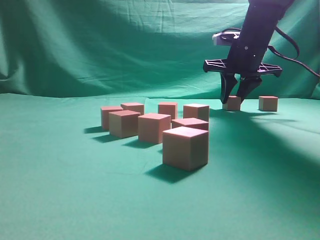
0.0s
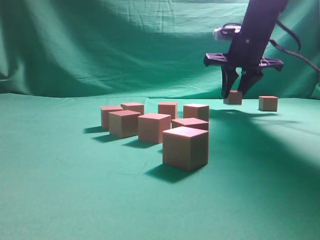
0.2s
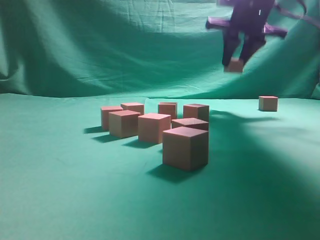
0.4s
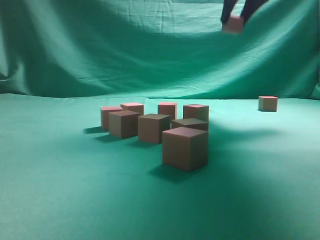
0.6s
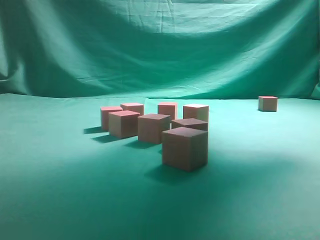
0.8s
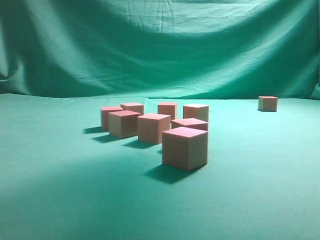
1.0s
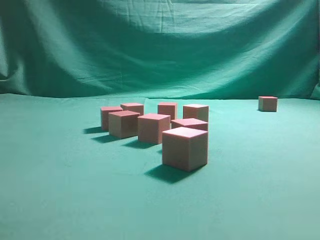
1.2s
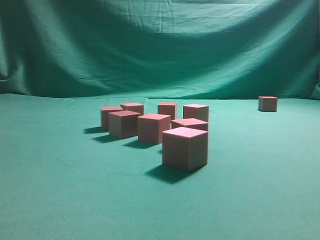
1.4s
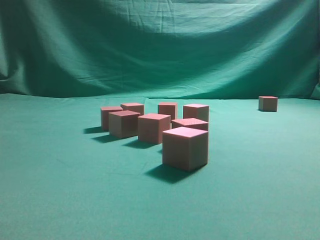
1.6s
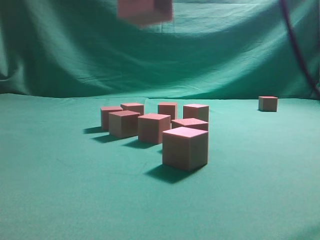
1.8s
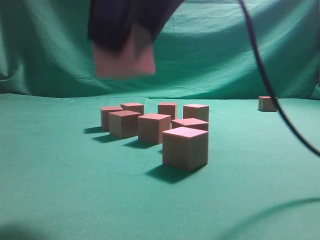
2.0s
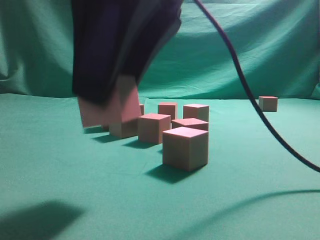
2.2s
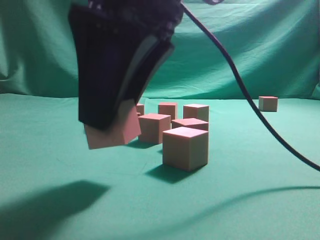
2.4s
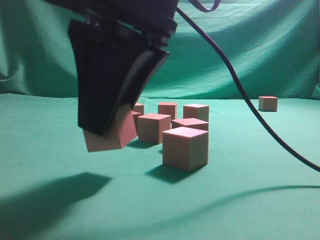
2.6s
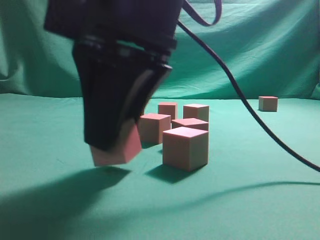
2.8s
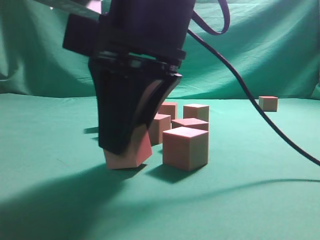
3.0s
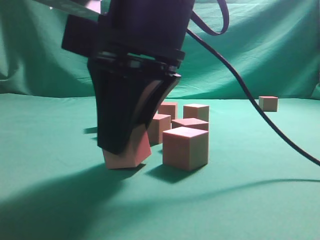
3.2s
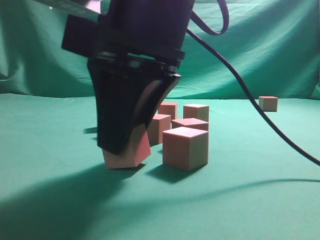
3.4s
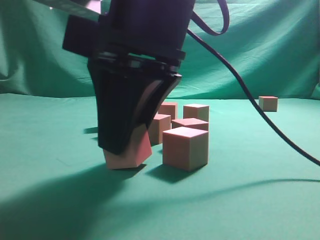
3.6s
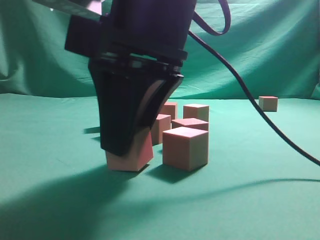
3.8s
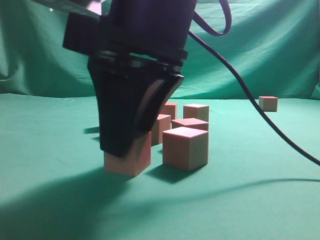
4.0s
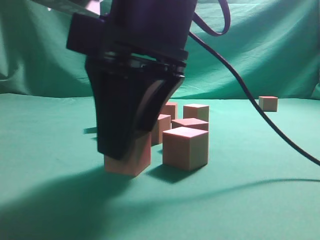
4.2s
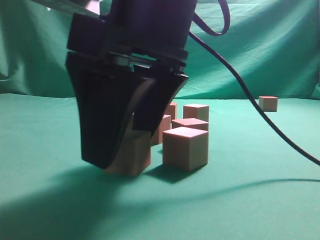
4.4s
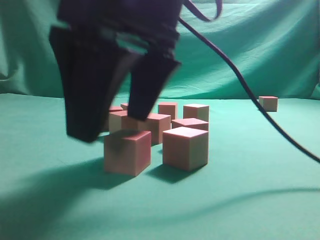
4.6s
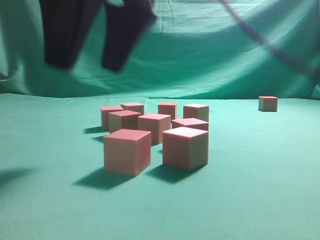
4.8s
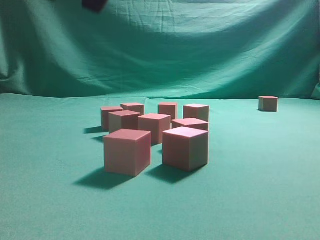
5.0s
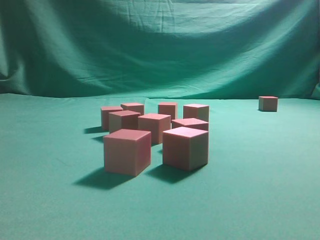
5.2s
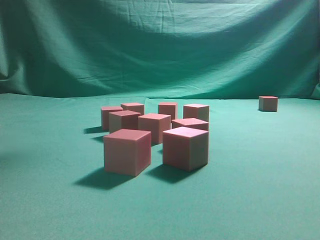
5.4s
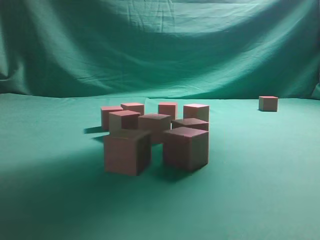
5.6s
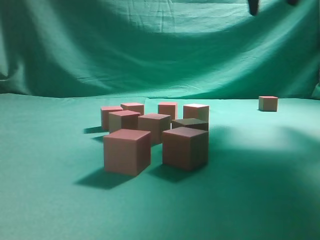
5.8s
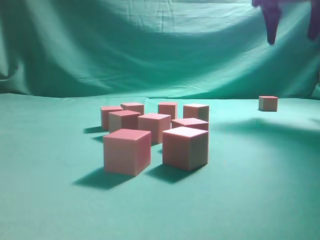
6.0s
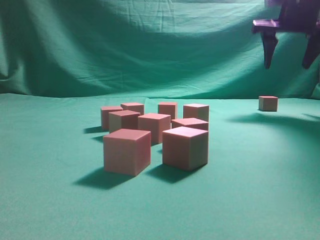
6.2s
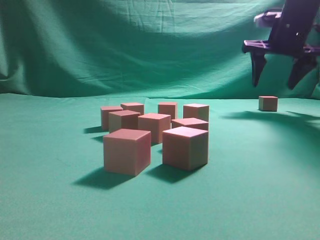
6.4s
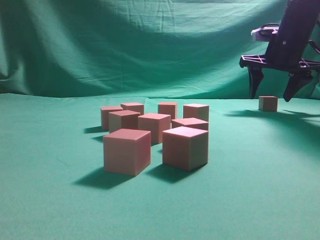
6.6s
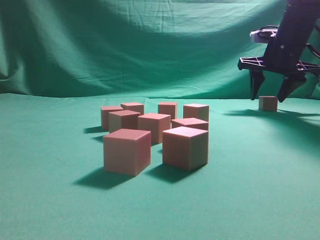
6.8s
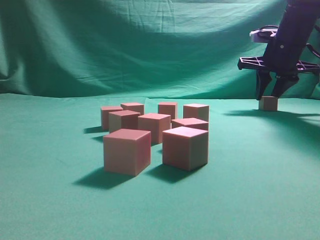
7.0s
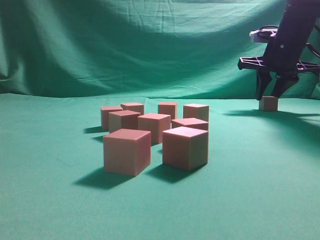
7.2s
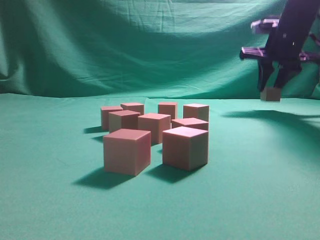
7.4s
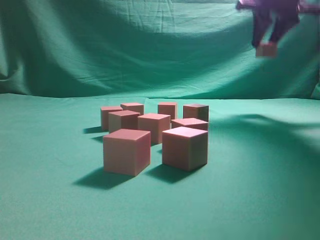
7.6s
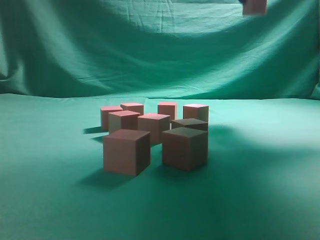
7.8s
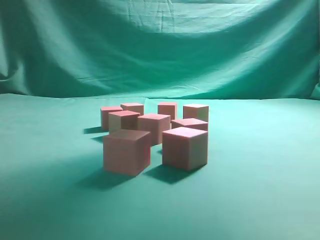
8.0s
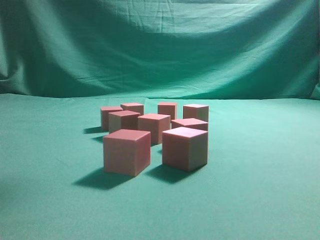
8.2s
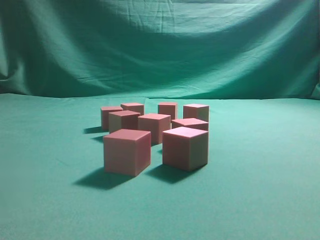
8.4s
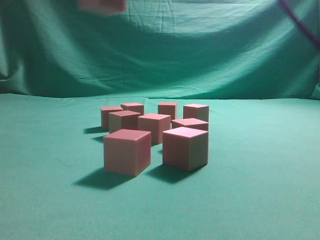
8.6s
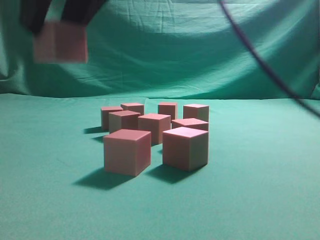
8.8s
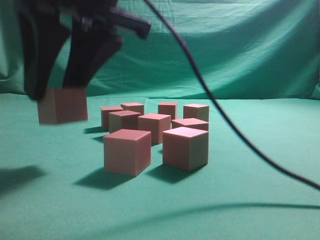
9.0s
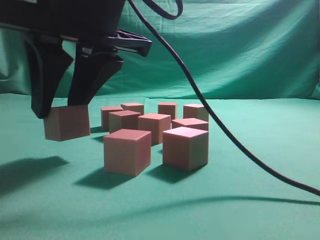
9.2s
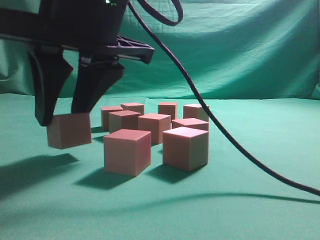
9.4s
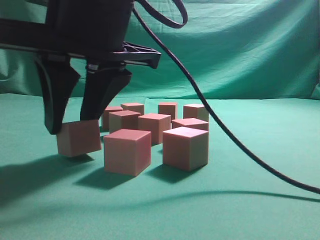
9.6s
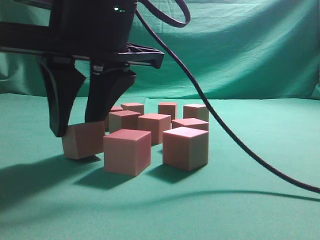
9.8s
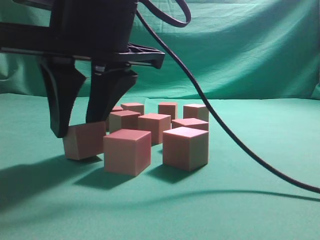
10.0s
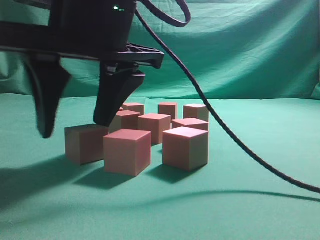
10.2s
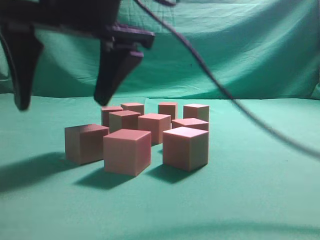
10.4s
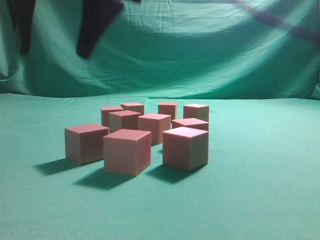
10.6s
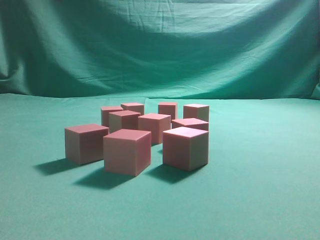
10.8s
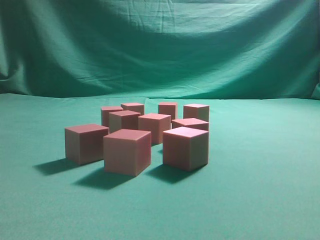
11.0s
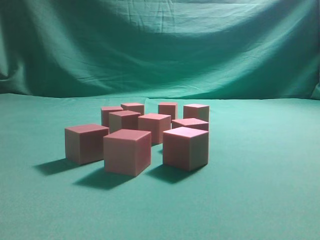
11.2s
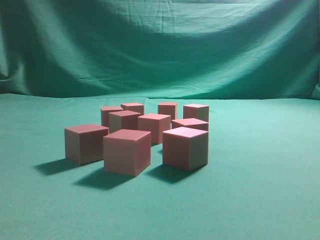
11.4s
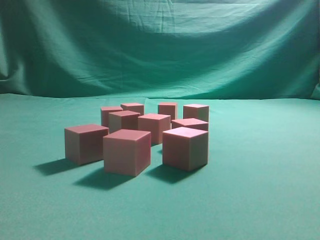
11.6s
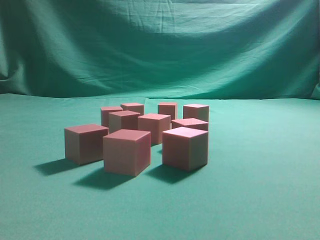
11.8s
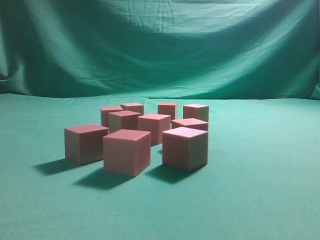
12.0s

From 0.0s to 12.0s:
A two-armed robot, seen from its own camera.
Task of the whole recording: pick up the multiple cubes in two columns one by one and place them in another position on the table.
Step, from 1.0s to 4.6s: Place the block at the correct position to assemble the letter S.
Step, from 4.8s to 7.8s: Pick up the block on the table.
Step, from 8.2s to 10.4s: Place the block at the correct position to assemble the letter S.
From 0.0s to 1.6s: The right gripper is displaced backward and upward by some 35 cm.
From 1.6s to 3.0s: The right gripper heads downward and to the left, covering approximately 15 cm.
From 3.0s to 4.4s: The right gripper opens up.
From 4.4s to 6.0s: The right gripper is displaced to the right, forward and upward by about 35 cm.
From 6.0s to 7.6s: The right gripper reaches some 10 cm downward, then returns, and closes.
From 7.6s to 9.0s: The right gripper heads to the left and backward, covering about 35 cm.
From 9.0s to 10.4s: The right gripper opens up.
From 10.4s to 12.0s: The right gripper heads upward, to the right and backward, covering some 40 cm, and closes.
